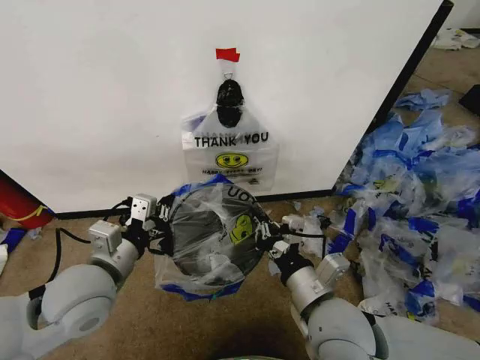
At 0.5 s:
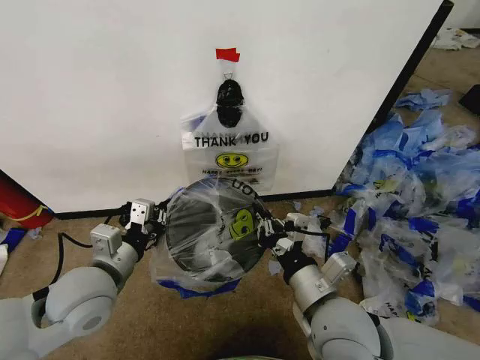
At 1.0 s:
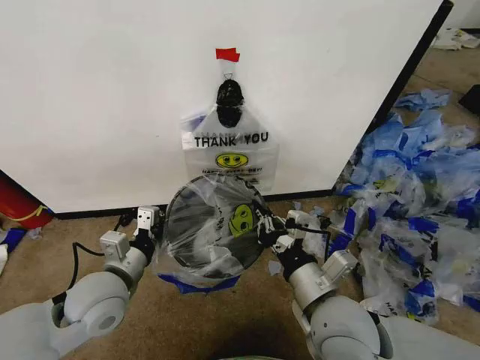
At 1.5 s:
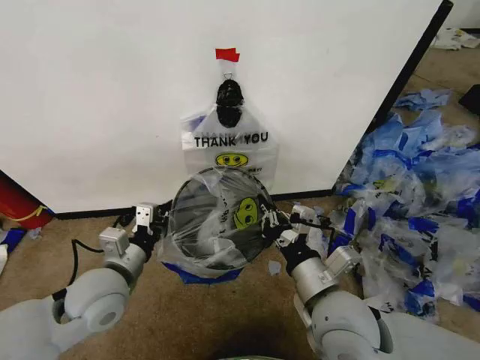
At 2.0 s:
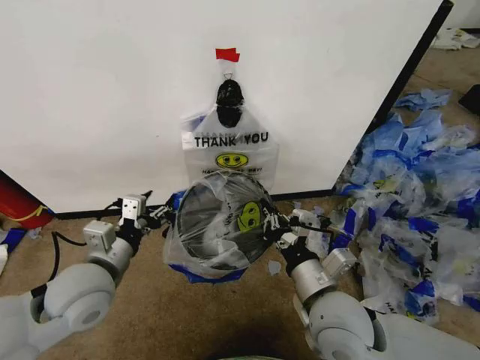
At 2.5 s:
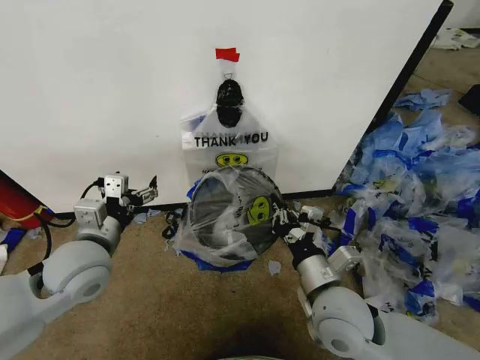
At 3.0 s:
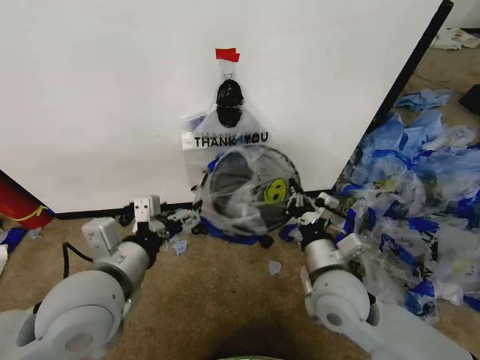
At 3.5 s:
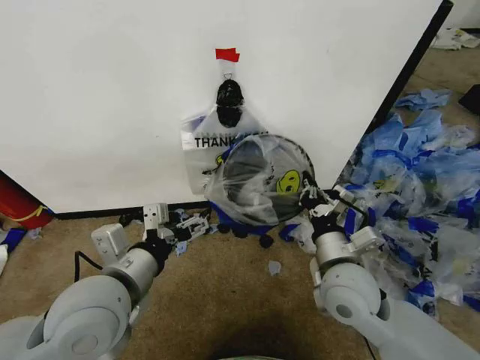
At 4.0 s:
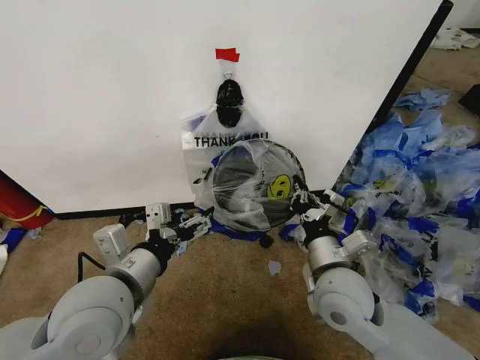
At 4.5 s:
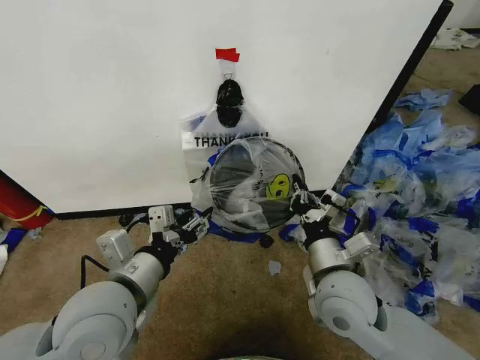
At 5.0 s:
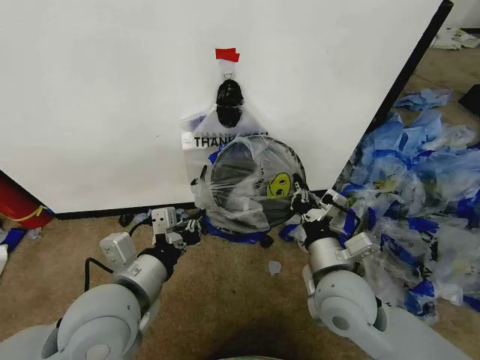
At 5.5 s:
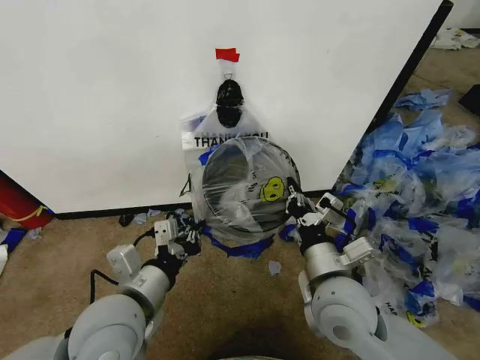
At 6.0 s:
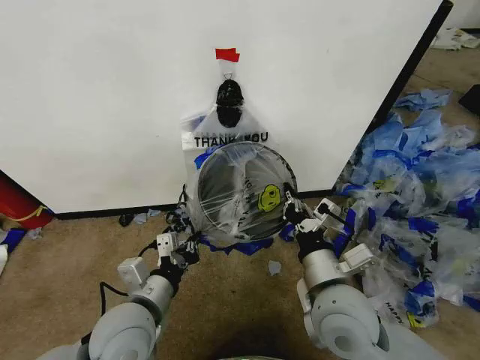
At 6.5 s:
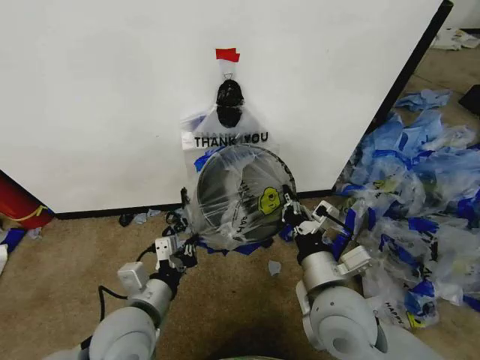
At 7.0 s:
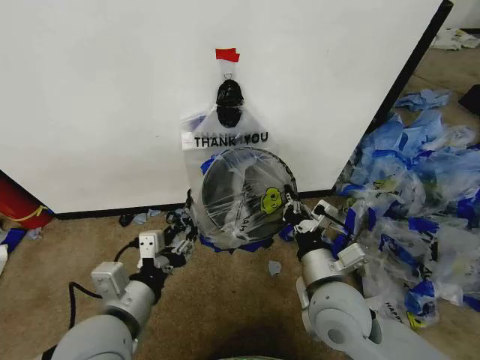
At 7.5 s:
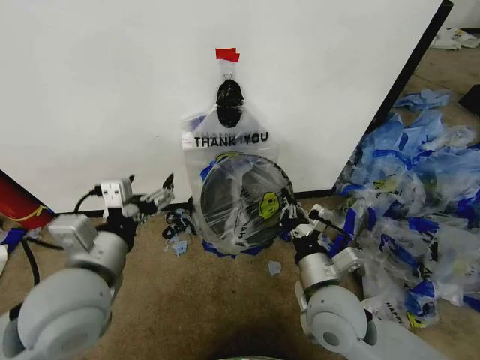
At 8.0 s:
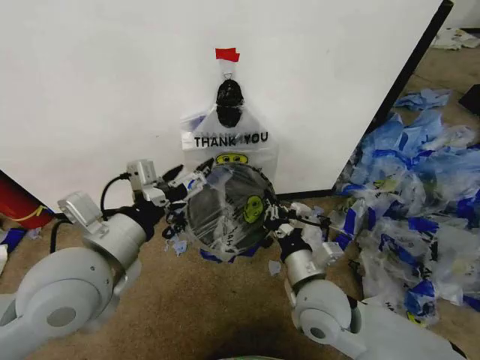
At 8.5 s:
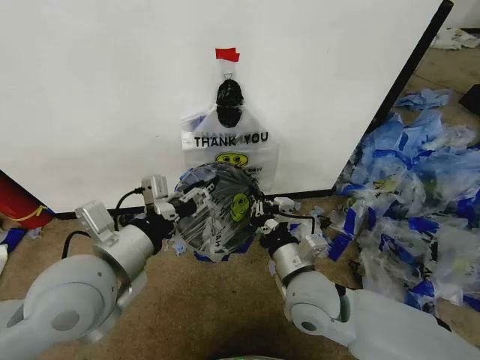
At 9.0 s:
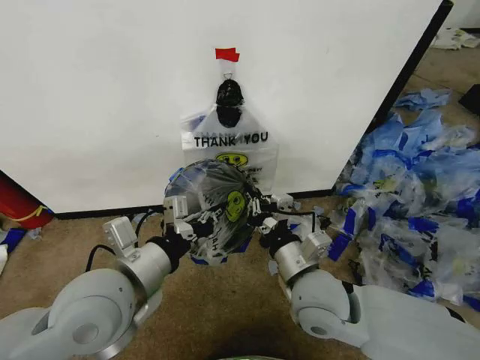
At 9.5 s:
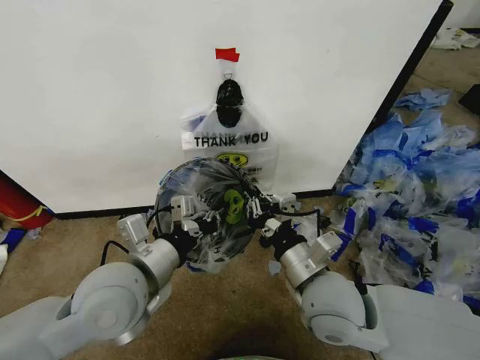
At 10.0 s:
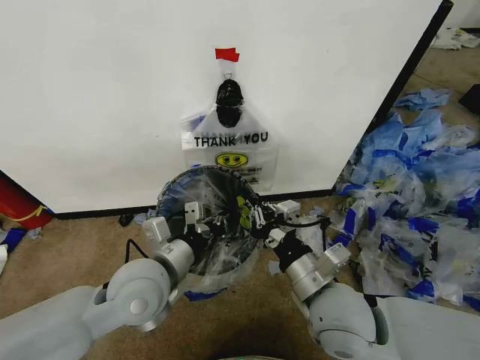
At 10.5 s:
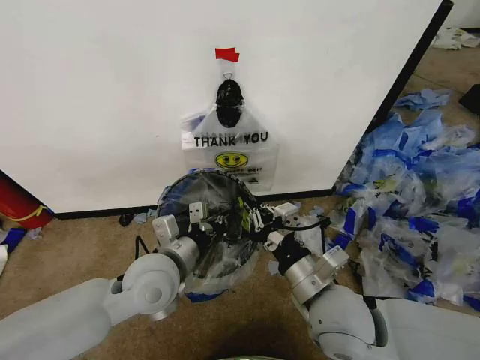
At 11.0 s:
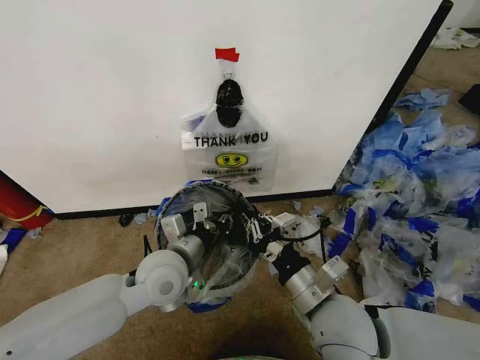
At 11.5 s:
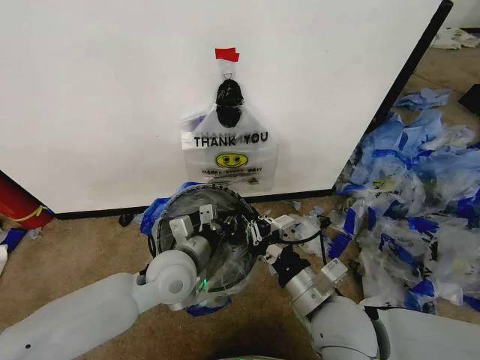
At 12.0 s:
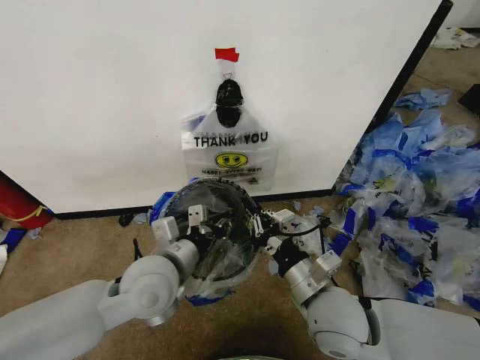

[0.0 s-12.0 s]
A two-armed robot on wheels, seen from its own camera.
Task of the whole recording: Pick up the garbage bag from the wall and place it over the trash bin.
0.0 to 2.0 s: The left gripper opens up.
2.0 to 4.0 s: The left gripper moves to the right, upward and backward, roughly 10 cm.
4.0 to 6.0 s: The left gripper moves downward, approximately 10 cm, and closes.
6.0 to 8.0 s: The right gripper changes place by some 5 cm. Meanwhile the left gripper travels upward by approximately 15 cm, and opens up.
8.0 to 10.0 s: The right gripper shifts by some 5 cm. Meanwhile the left gripper moves downward, roughly 10 cm, and closes its fingers.
10.0 to 12.0 s: The left gripper opens up.

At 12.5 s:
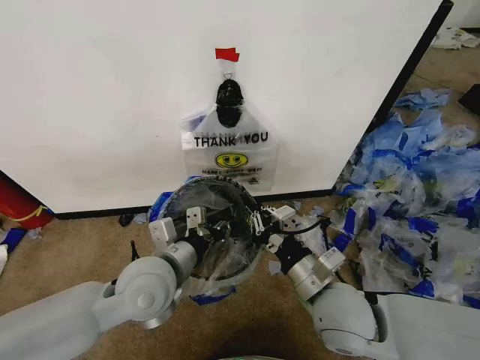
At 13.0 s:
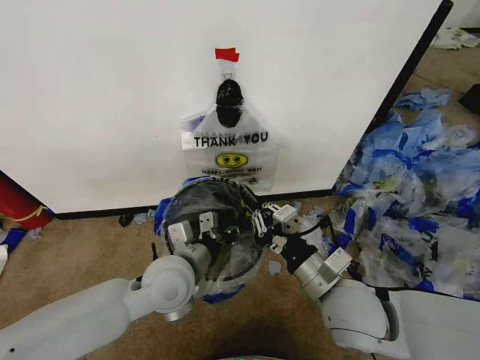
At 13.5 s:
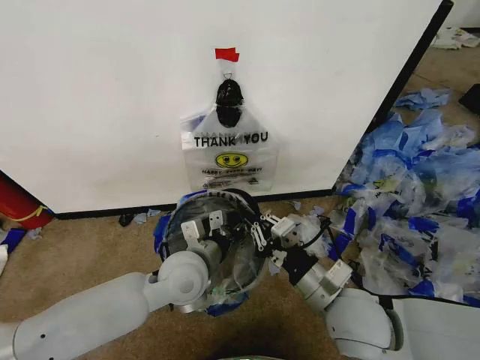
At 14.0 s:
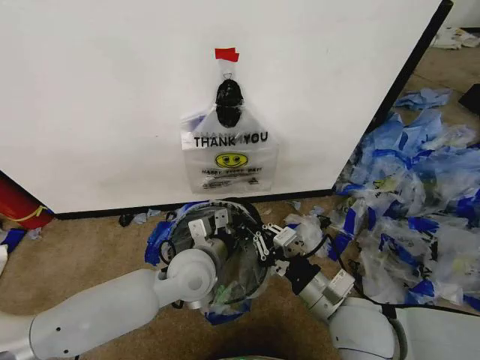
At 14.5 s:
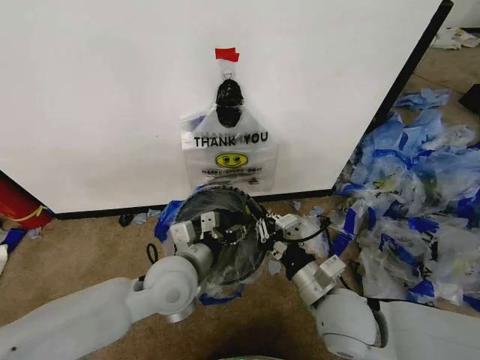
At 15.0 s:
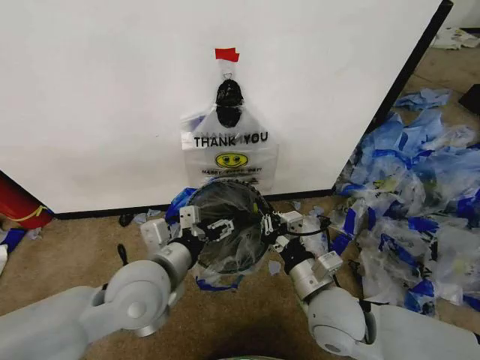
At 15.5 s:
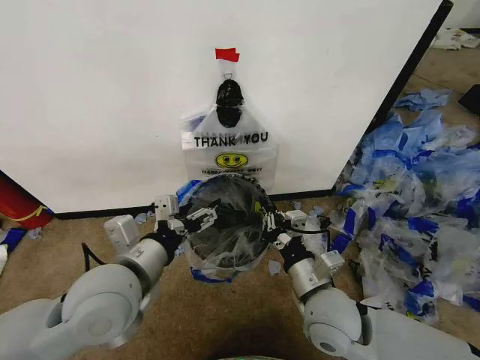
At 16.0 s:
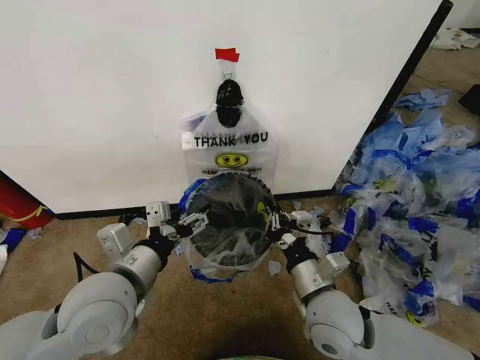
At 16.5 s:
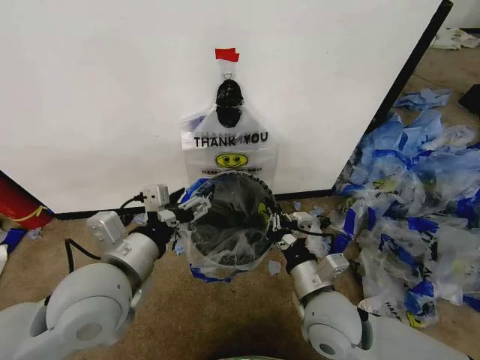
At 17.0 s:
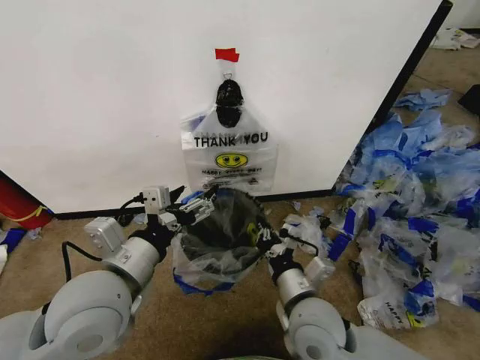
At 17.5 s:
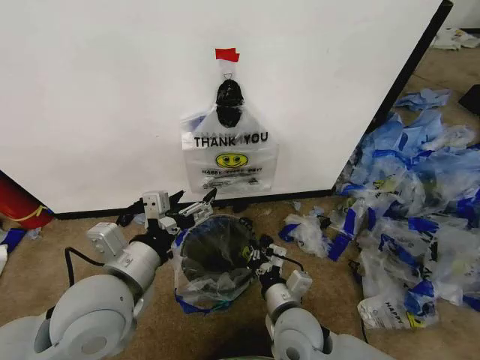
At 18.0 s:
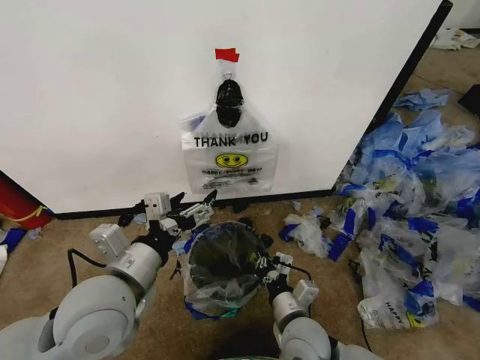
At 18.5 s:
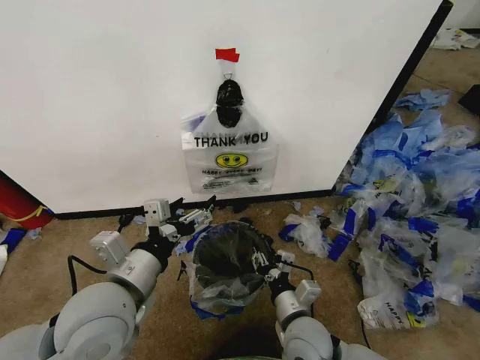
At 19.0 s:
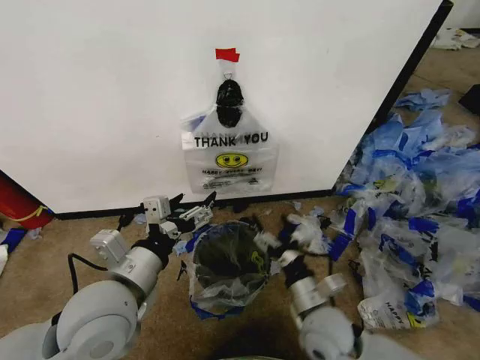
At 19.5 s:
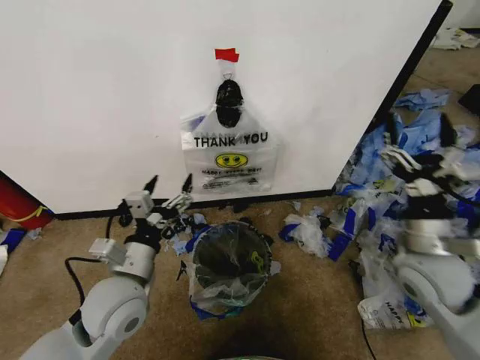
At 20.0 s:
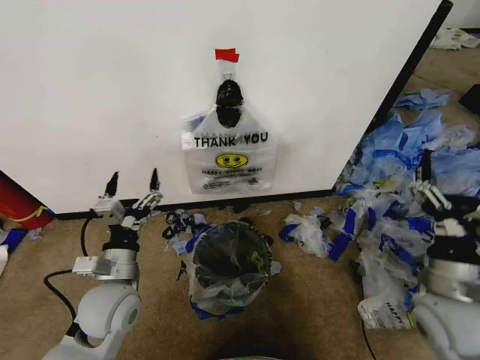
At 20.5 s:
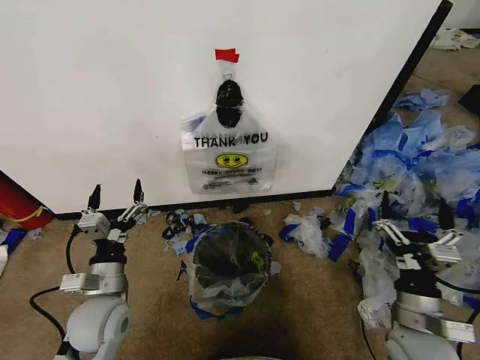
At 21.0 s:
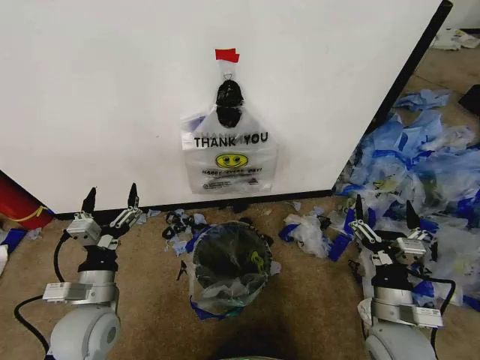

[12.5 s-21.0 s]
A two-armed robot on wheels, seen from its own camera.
Task of the whole recording: Pick up the garbage bag from the wall and place it over the trash bin.
12.5 to 14.5 s: The left gripper opens its fingers.
14.5 to 16.5 s: The left gripper moves upward, to the left and backward, about 15 cm.
16.5 to 19.0 s: The right gripper is displaced downward by some 5 cm, and opens up.
19.0 to 21.0 s: The right gripper heads to the right, covering approximately 10 cm; the left gripper shifts roughly 15 cm downward and to the left.

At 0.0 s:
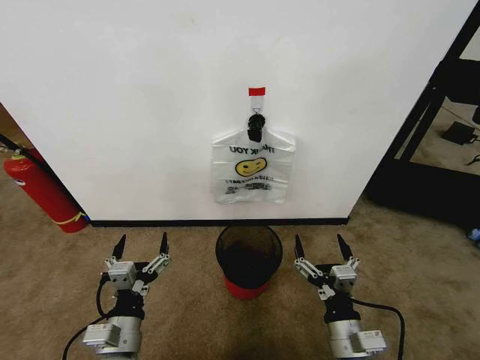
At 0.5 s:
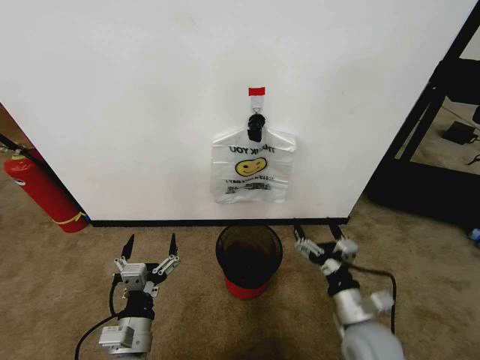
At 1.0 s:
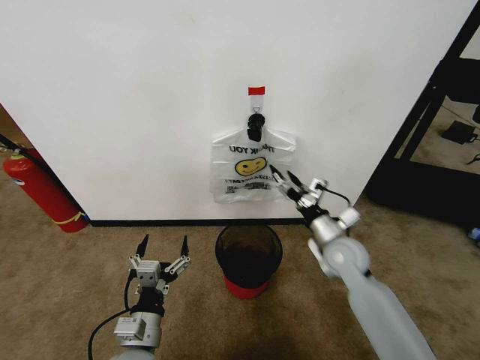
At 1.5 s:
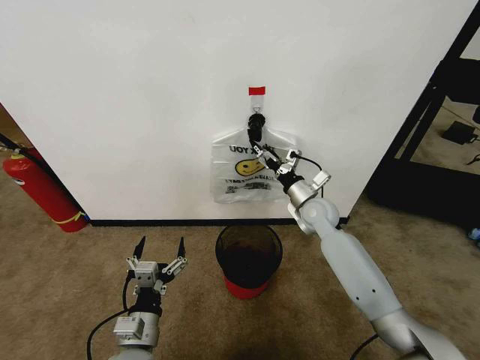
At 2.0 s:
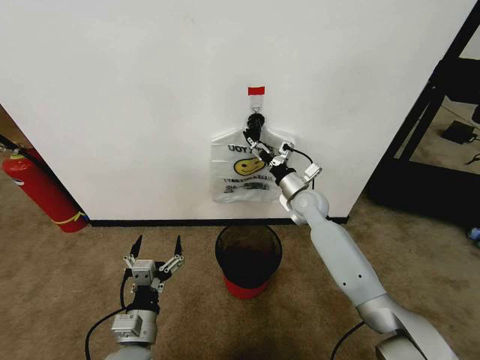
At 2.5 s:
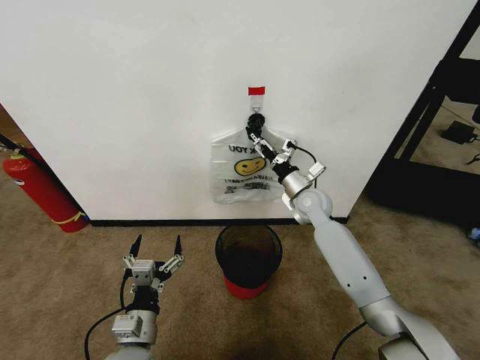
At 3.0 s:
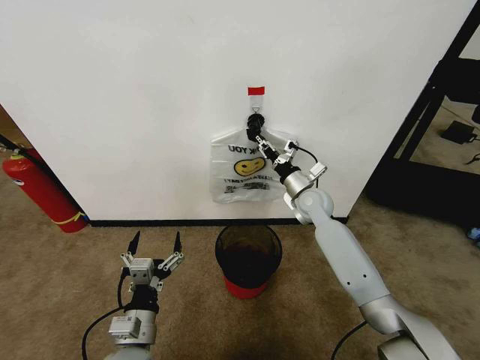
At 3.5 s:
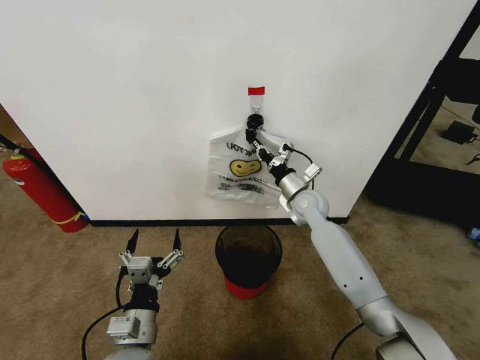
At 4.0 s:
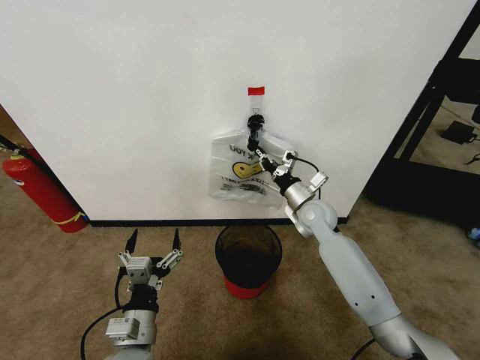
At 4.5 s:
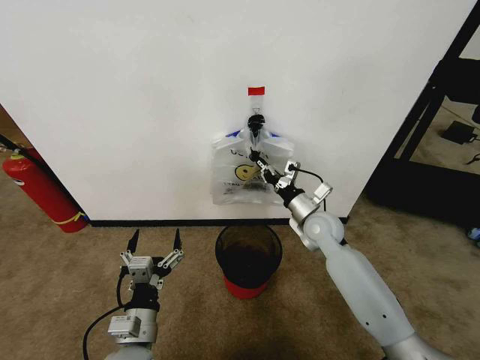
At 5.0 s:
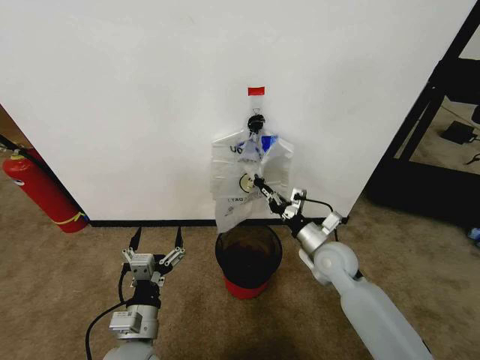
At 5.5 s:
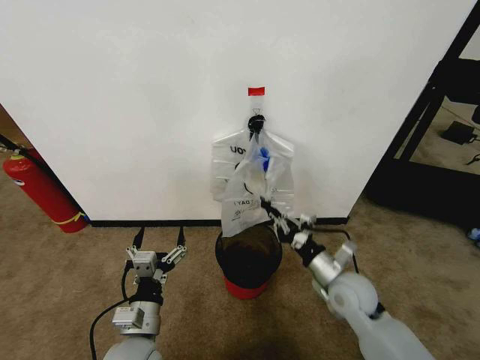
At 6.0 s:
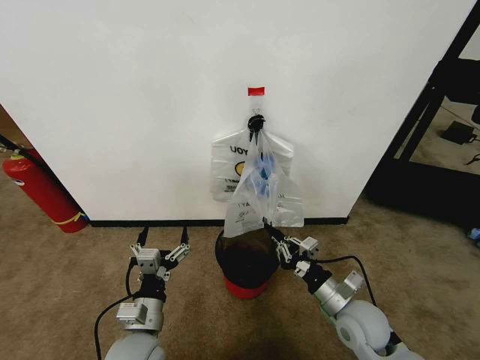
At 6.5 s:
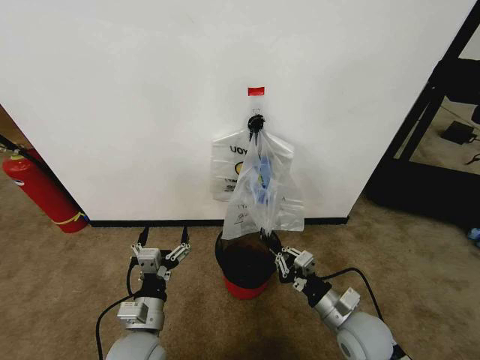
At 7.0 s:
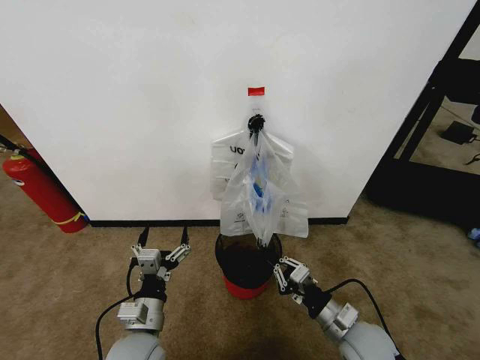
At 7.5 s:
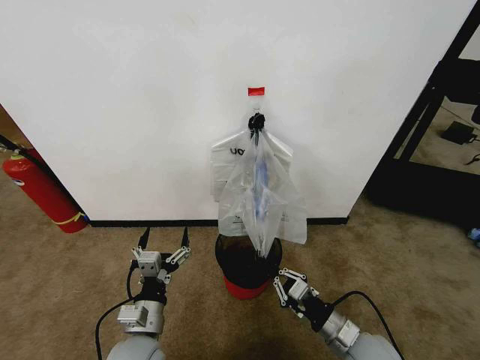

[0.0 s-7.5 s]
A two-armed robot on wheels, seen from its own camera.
Task of the whole recording: Pick up the garbage bag from the wall and place it over the trash bin.
2.0 to 4.0 s: The right gripper closes up.
4.0 to 5.5 s: The right gripper shifts roughly 20 cm backward.
5.5 to 7.5 s: The right gripper travels backward by roughly 10 cm.
